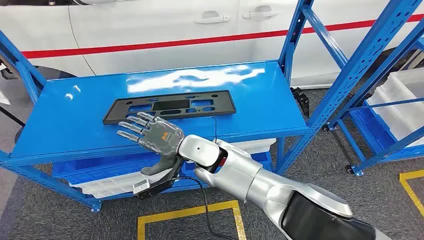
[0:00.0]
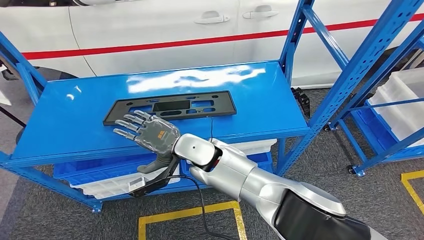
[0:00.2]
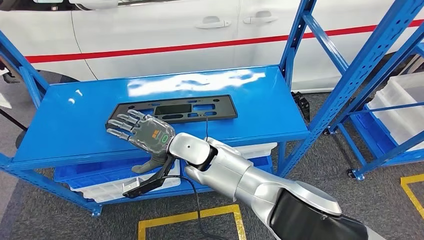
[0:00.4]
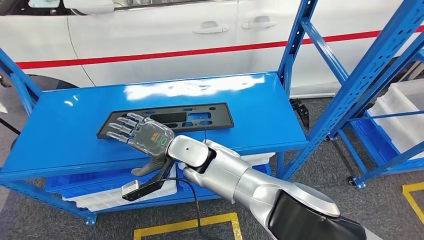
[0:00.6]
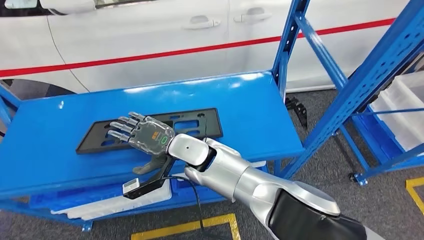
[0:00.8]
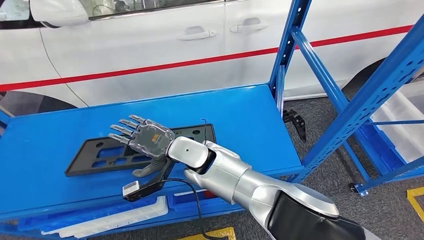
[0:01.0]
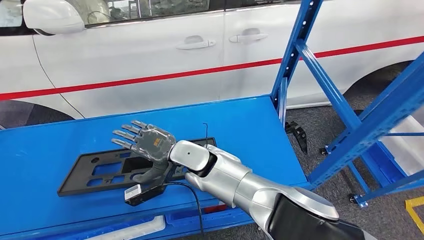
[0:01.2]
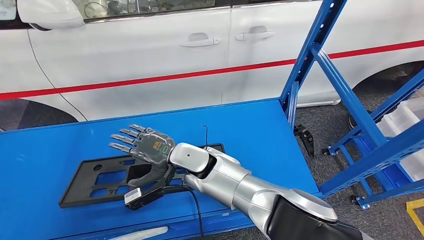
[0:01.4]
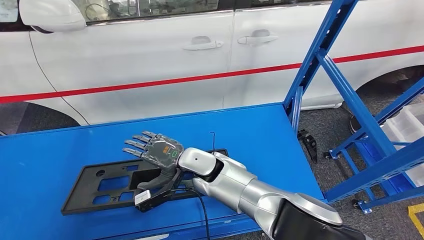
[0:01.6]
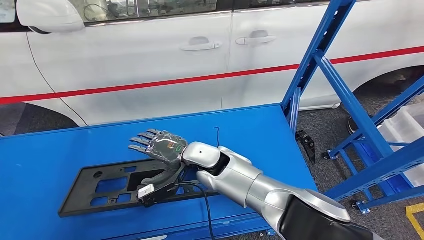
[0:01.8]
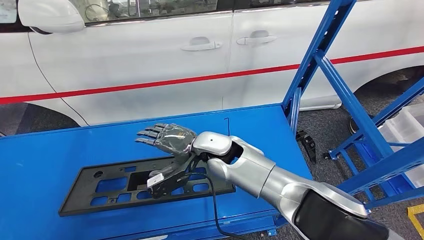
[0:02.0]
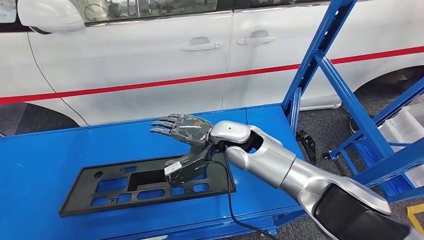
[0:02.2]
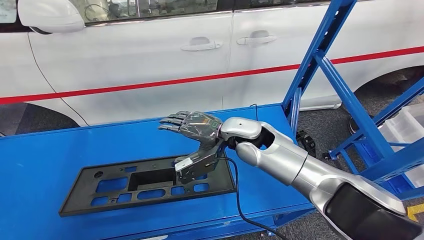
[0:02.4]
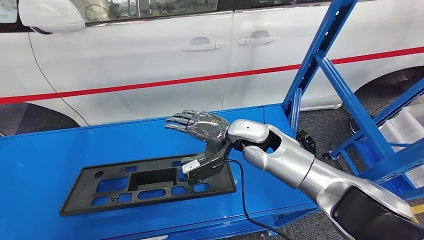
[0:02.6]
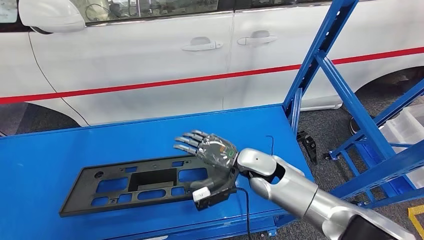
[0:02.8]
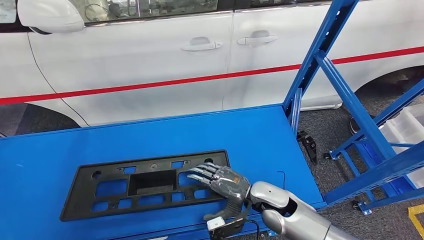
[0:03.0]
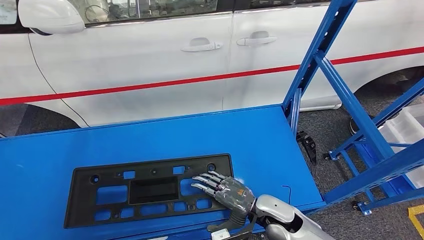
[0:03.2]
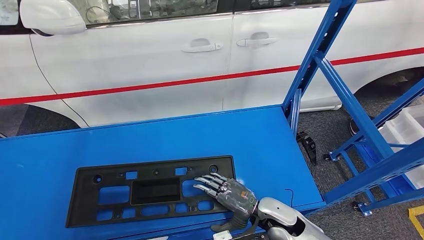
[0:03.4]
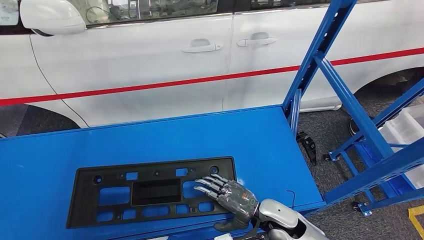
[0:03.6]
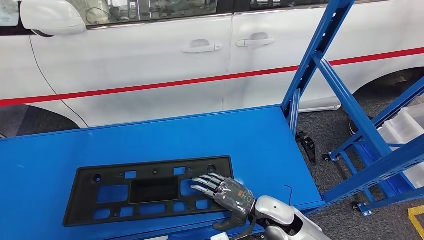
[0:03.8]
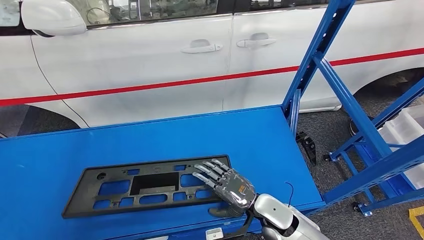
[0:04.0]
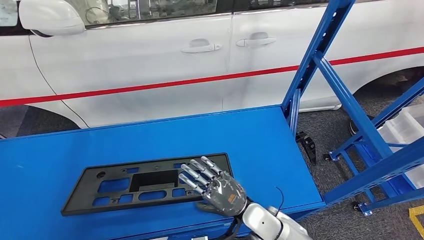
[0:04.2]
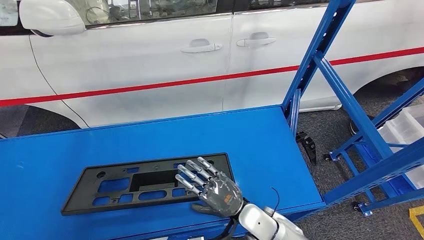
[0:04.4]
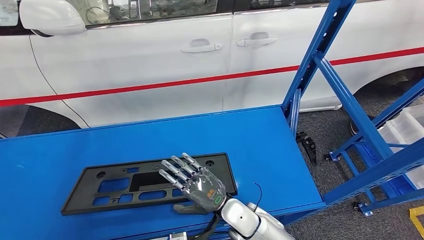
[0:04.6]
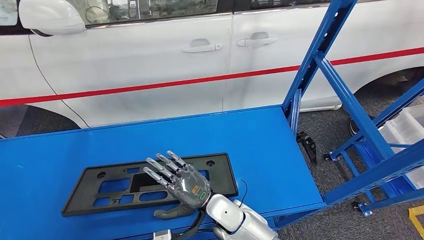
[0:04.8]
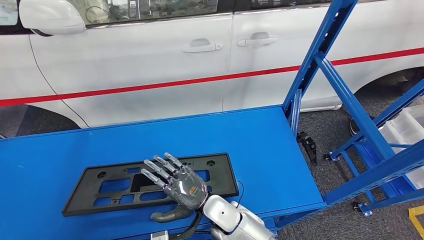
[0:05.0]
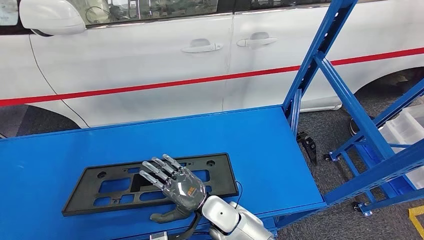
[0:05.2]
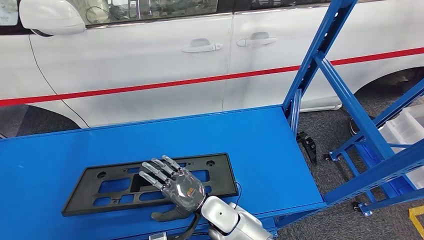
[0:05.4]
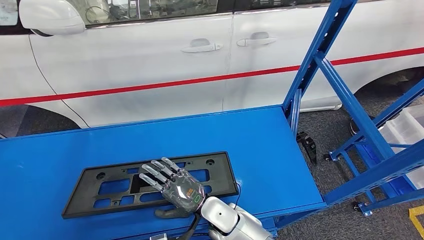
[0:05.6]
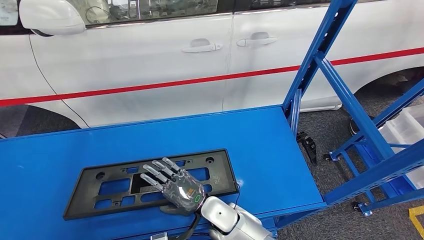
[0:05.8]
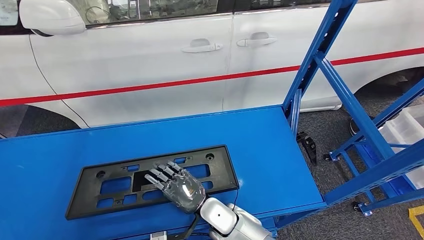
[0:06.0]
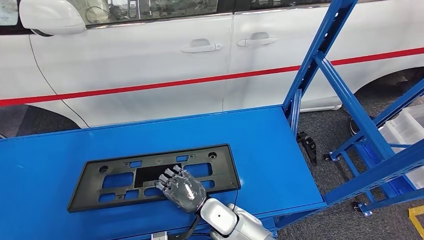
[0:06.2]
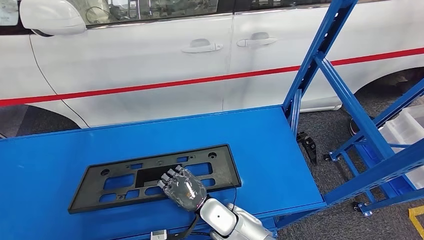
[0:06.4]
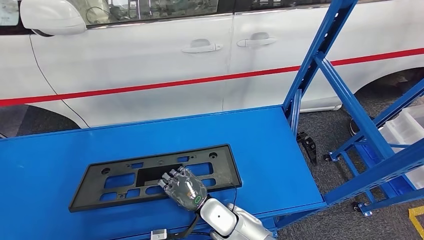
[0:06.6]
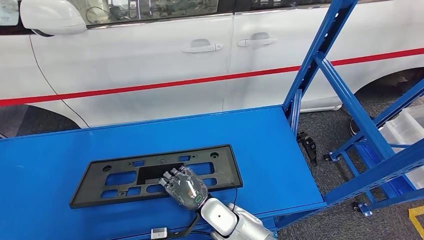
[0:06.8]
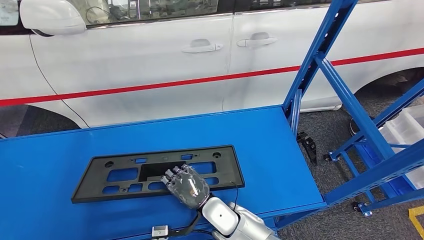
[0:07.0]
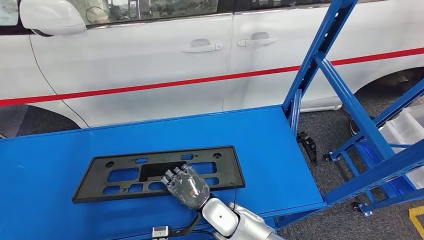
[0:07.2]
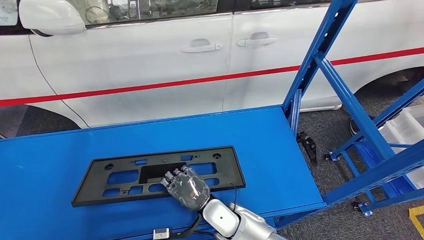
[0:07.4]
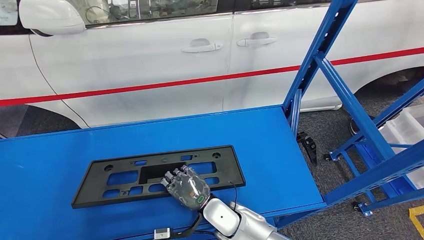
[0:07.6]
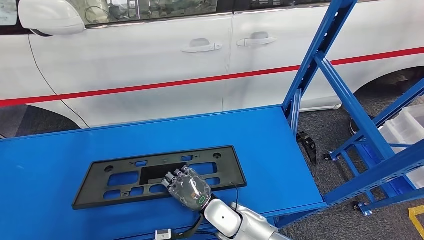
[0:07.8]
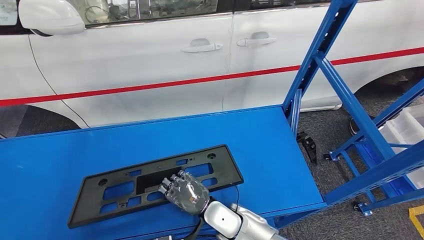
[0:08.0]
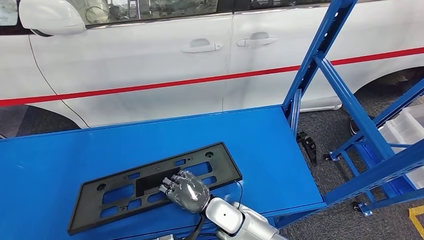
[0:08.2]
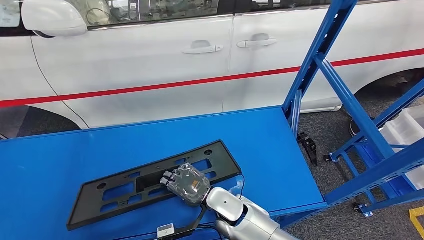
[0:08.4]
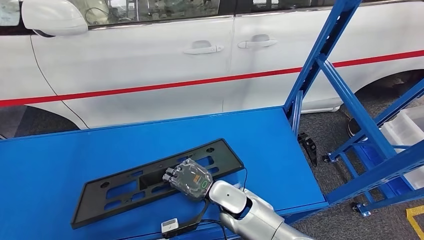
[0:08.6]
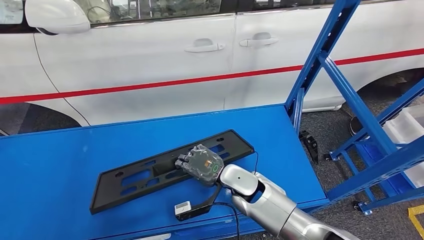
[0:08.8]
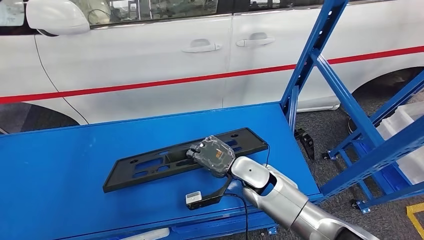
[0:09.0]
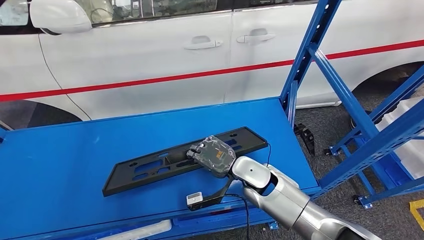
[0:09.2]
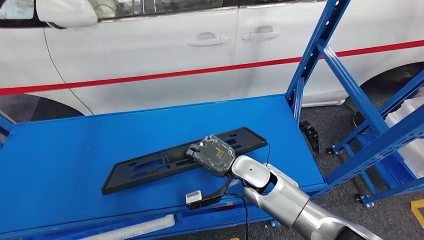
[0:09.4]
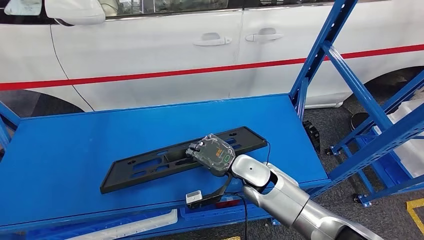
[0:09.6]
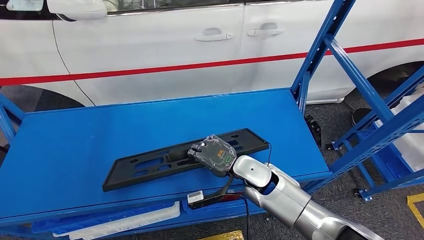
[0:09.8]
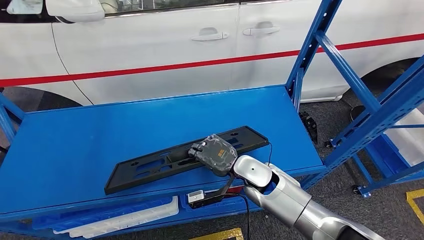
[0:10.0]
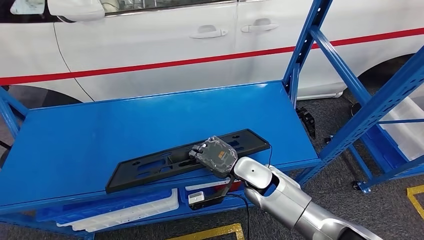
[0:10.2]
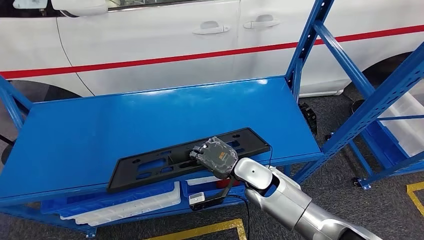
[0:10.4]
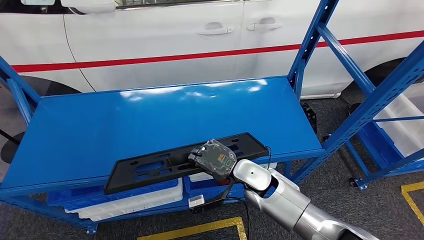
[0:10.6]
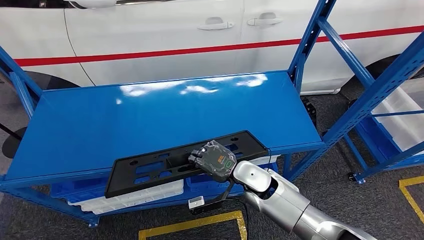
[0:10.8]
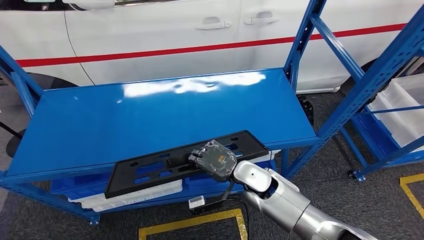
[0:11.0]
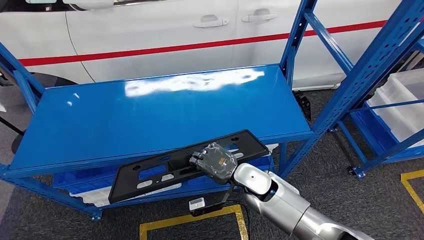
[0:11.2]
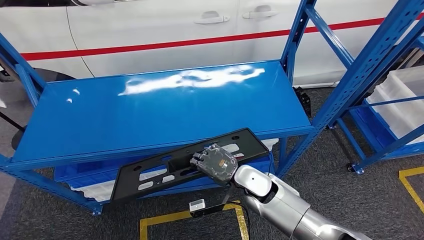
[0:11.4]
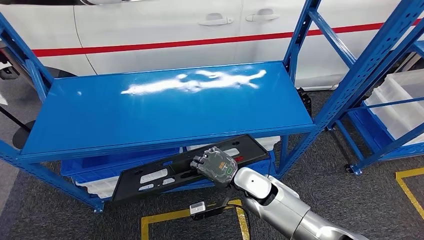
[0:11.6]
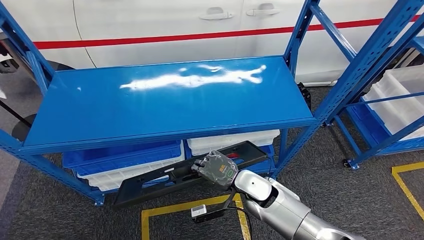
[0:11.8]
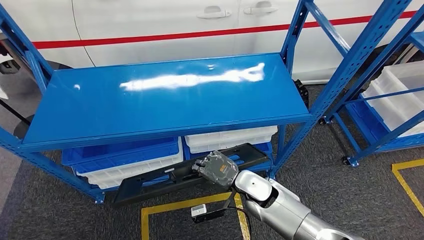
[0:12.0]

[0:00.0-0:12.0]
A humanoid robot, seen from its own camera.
Step, 0:00.0 to 0:09.6: Pick up the large material from the shelf.
0:01.6 to 0:03.0: The right hand shifts approximately 20 cm to the right, downward and backward.
0:03.0 to 0:04.4: The right hand shifts roughly 5 cm to the left.
0:04.4 to 0:06.0: The right hand moves to the left, about 10 cm.
0:06.0 to 0:07.6: The hands stay close to where they were, moving slightly.

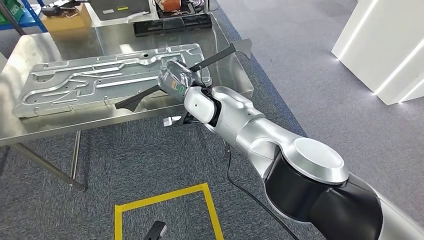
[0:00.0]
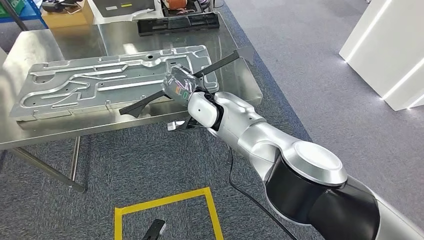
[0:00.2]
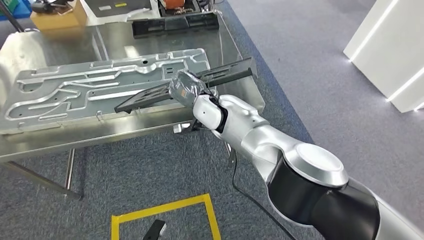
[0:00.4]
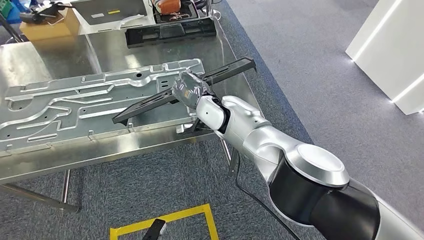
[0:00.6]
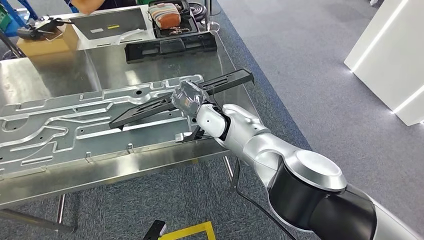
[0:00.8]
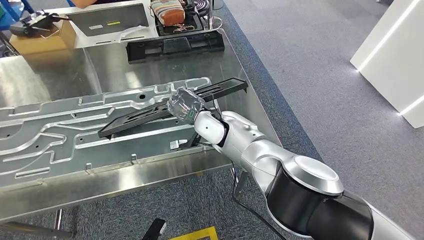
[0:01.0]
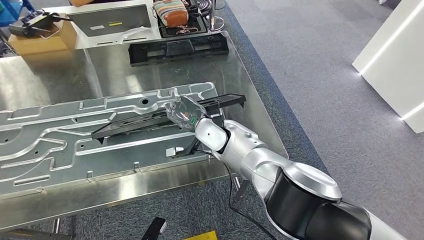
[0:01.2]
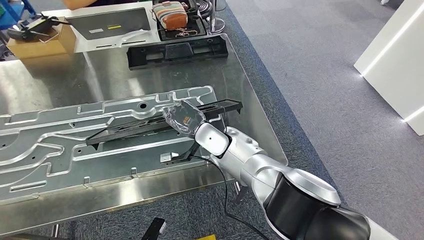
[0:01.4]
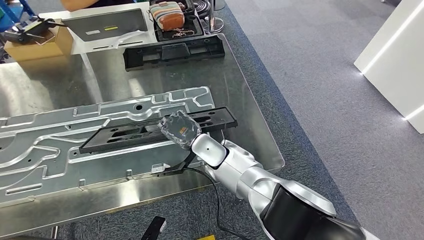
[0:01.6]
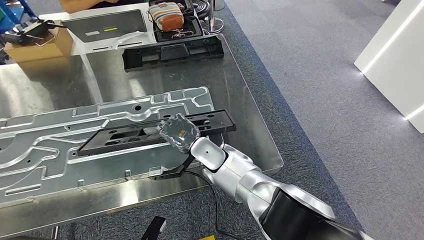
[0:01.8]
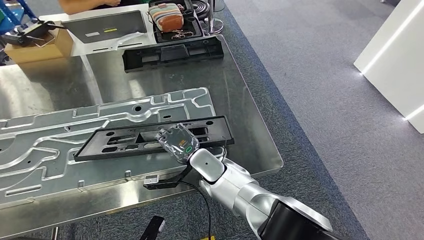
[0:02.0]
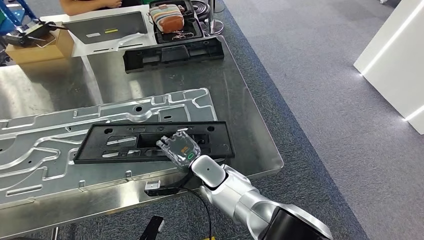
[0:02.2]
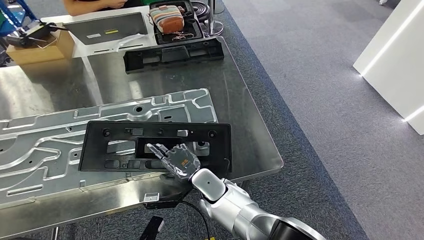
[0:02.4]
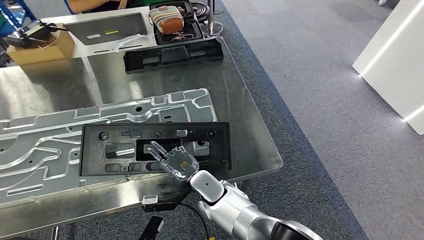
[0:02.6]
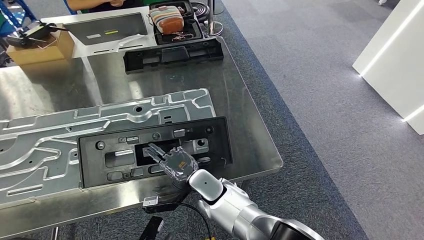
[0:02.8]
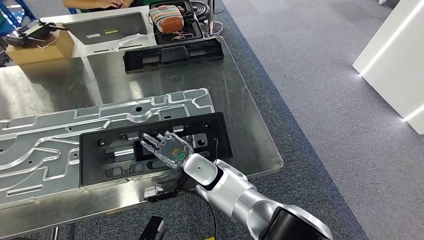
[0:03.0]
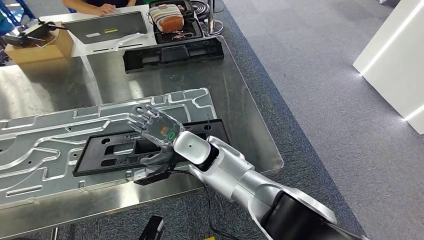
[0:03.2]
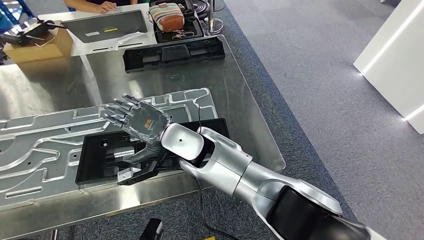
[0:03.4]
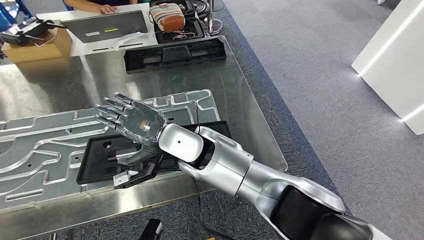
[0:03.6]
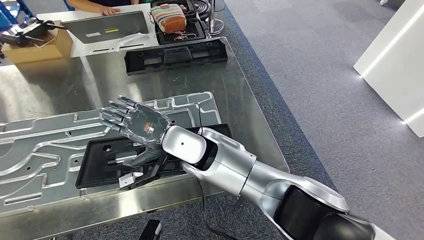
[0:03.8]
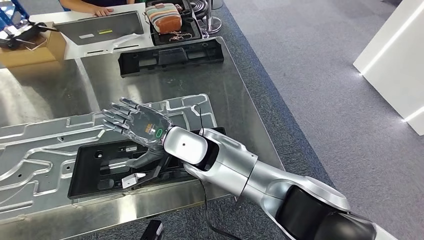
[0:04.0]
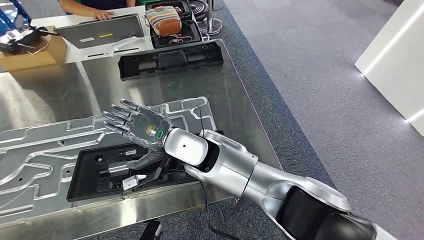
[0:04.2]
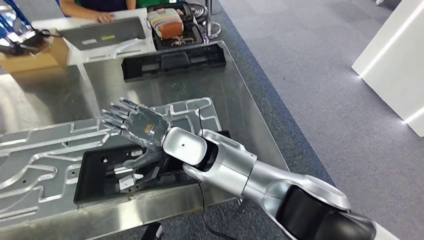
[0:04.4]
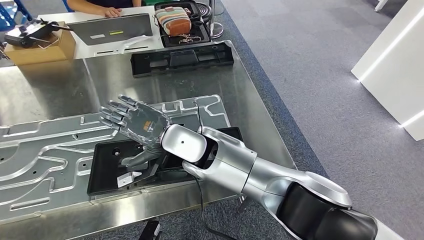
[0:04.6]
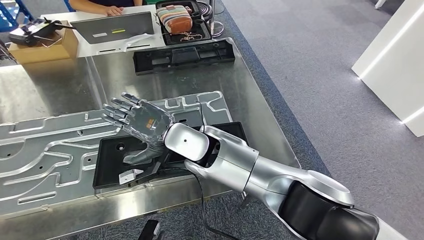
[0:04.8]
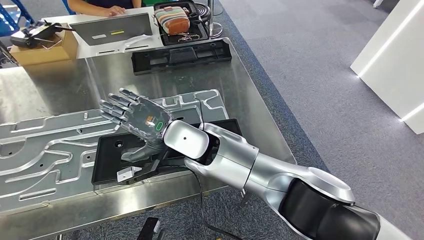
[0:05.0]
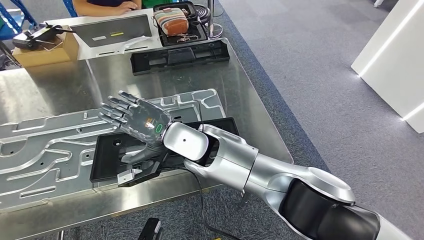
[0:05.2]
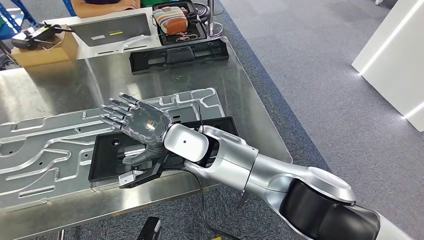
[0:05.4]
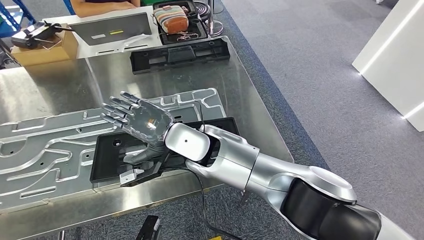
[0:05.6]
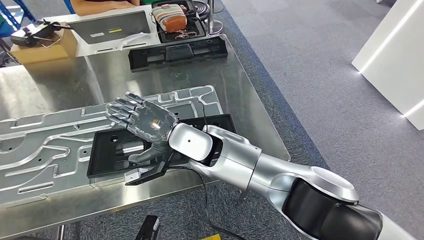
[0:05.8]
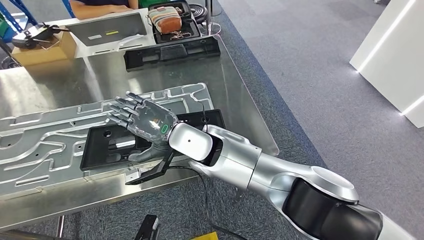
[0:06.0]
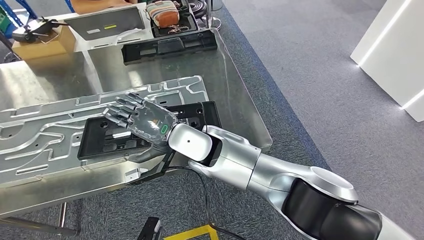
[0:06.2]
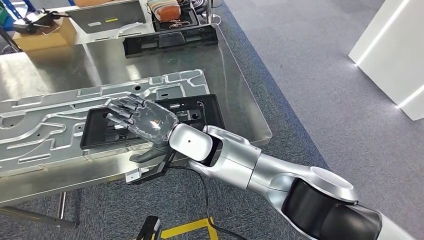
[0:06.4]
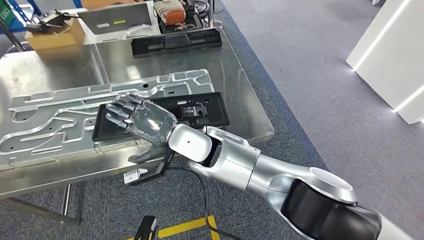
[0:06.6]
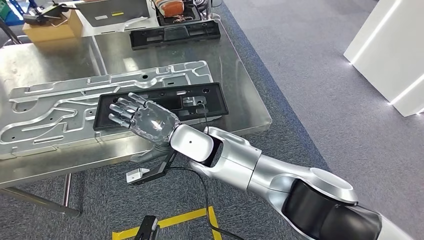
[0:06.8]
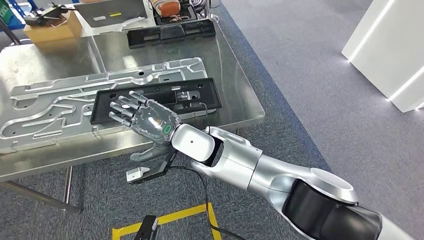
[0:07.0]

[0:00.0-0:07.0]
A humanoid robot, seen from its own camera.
Step, 0:01.4 to 0:06.2: Insert the large material into the corresponding slot on the workbench.
